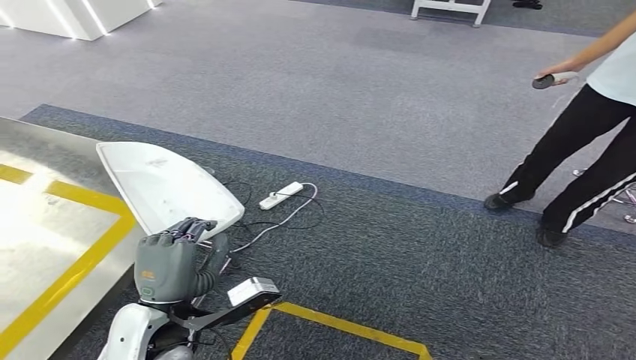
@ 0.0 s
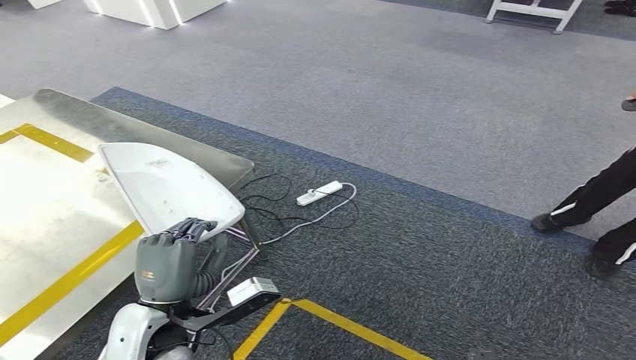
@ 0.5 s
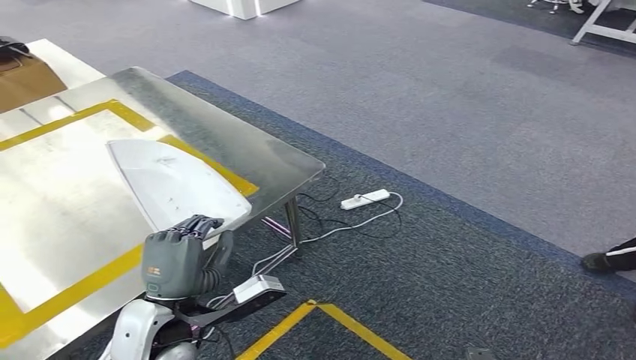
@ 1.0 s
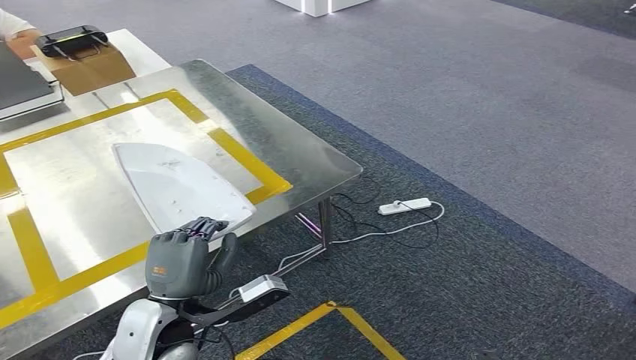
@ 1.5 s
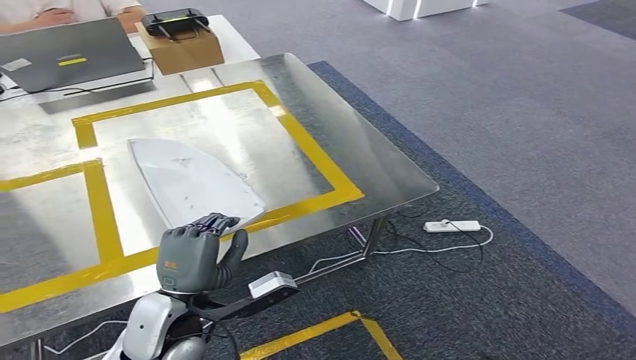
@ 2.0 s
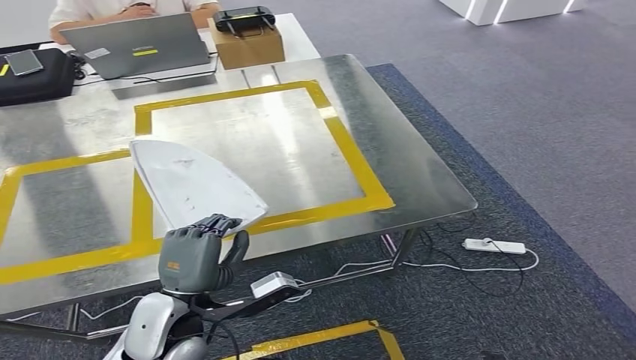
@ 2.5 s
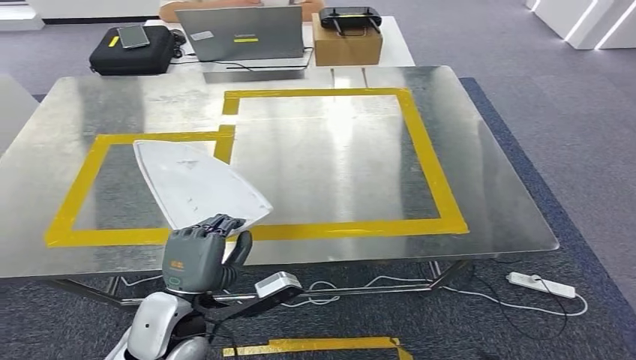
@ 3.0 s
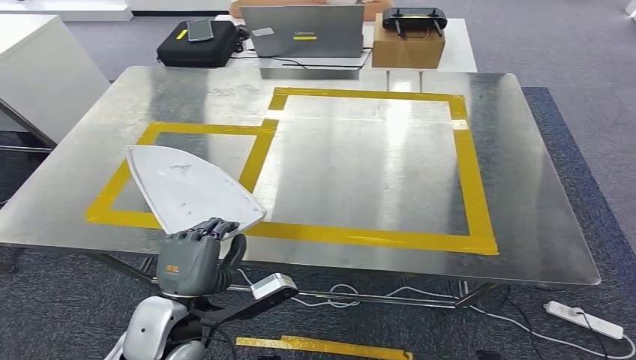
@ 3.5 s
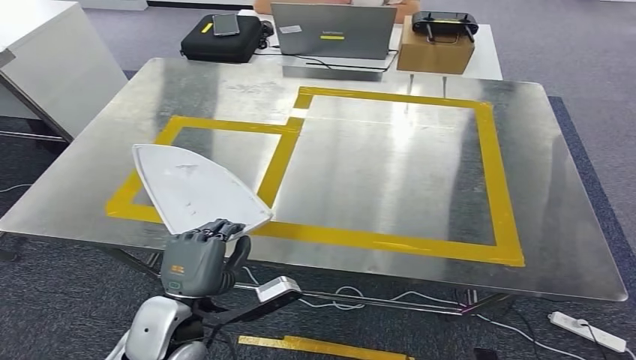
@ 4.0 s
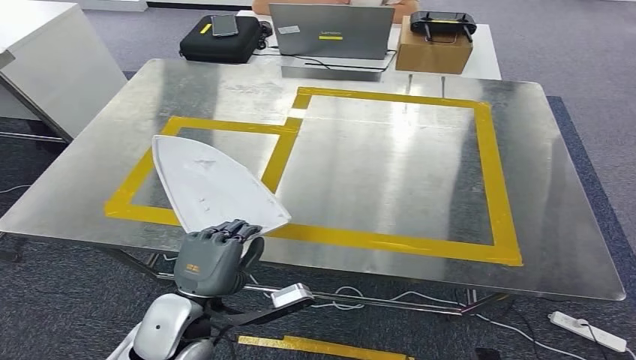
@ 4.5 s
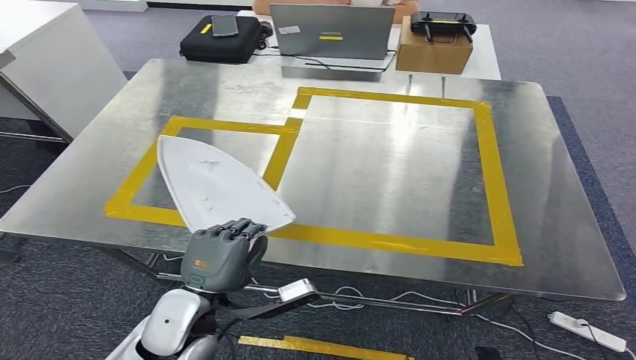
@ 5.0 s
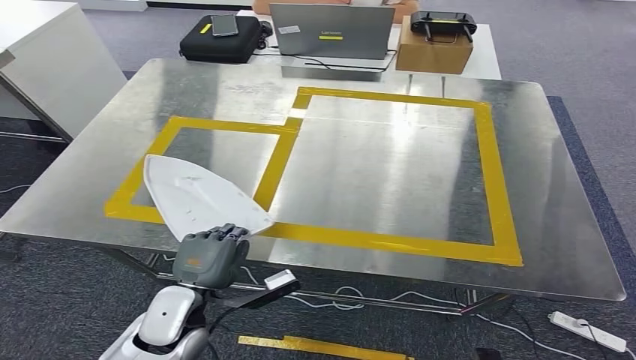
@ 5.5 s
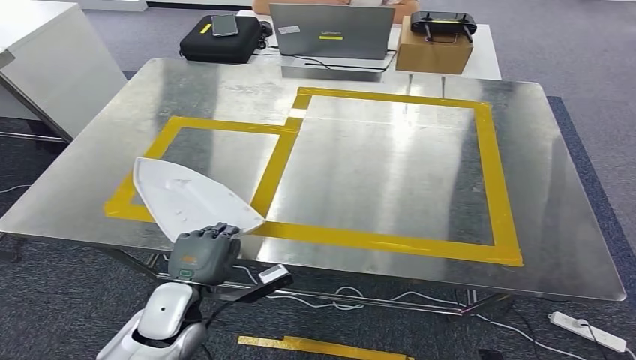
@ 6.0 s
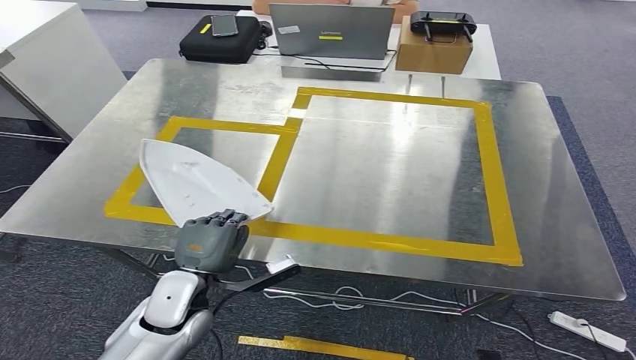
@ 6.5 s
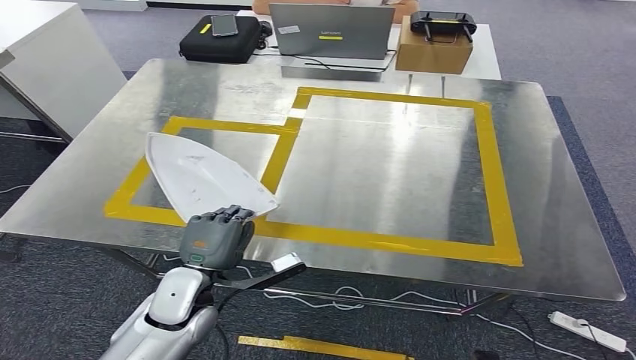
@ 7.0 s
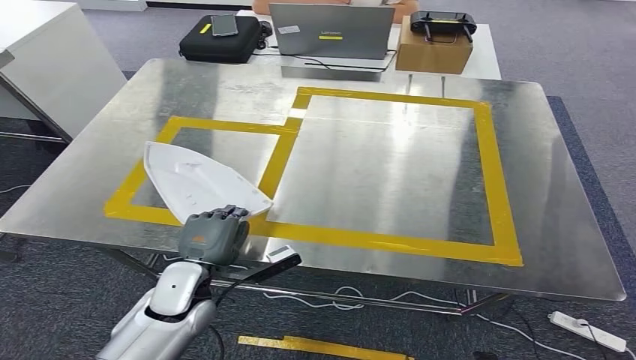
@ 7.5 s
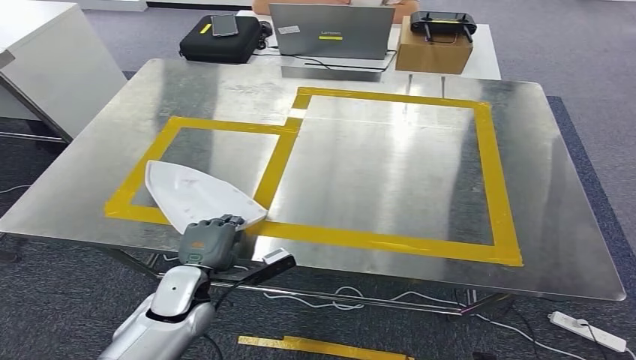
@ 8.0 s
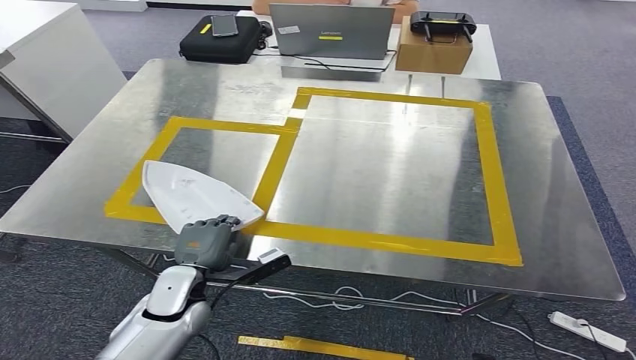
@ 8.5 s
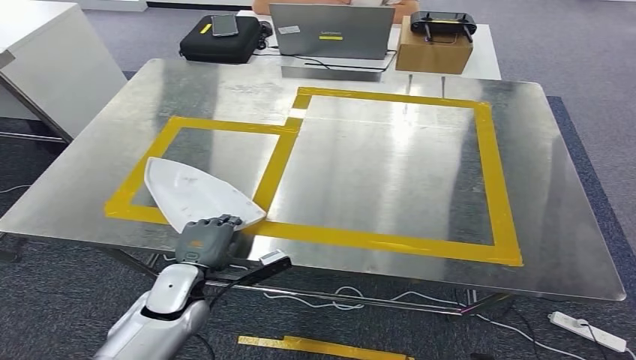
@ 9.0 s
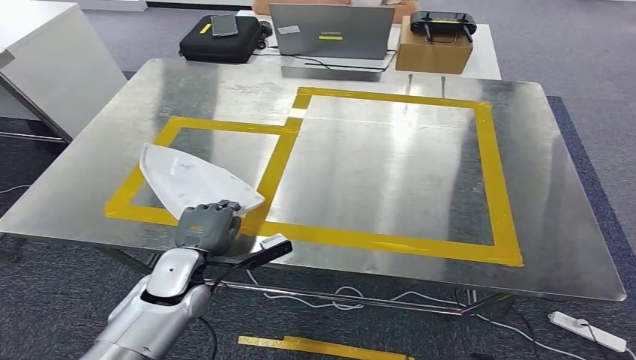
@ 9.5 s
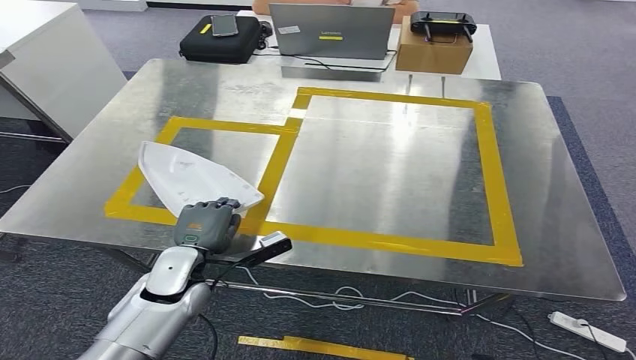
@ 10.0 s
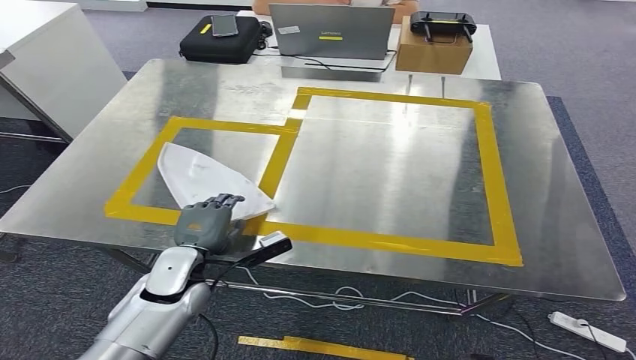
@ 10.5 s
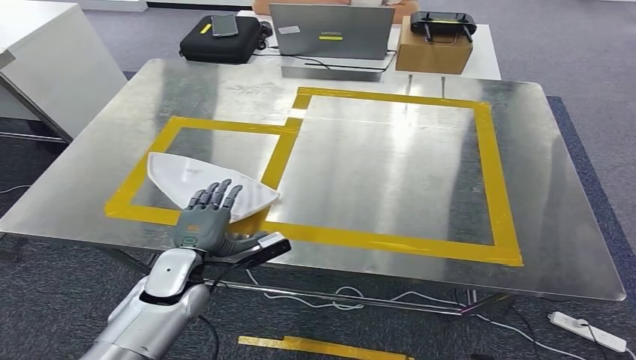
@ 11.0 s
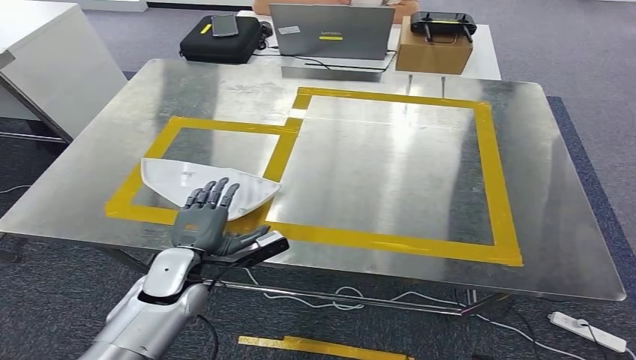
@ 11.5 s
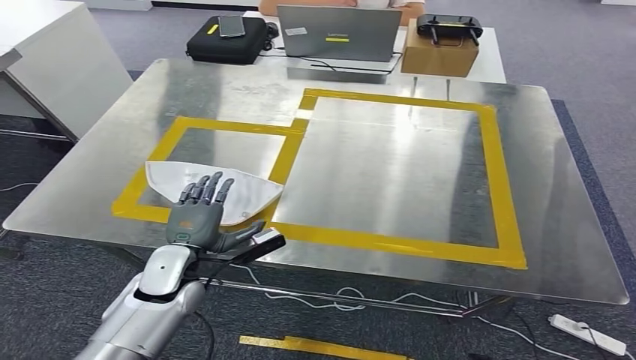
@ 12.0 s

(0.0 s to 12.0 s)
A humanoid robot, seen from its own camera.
Step, 0.0 s - 3.5 s: Move the small parts to the workbench.
4.0 s - 6.0 s: The left hand travels downward by roughly 5 cm.
6.0 s - 8.0 s: The hands make only small movements.
8.0 s - 10.0 s: The hands make only small movements.
10.0 s - 12.0 s: Neither hand changes place.

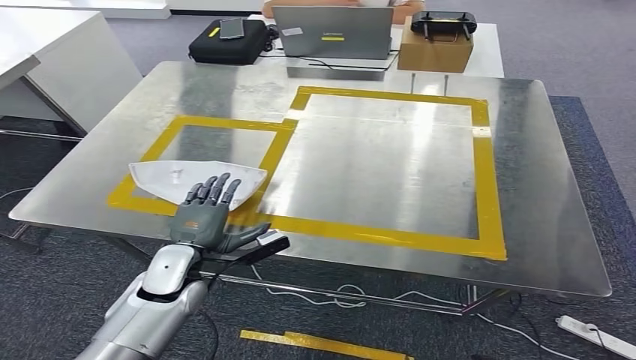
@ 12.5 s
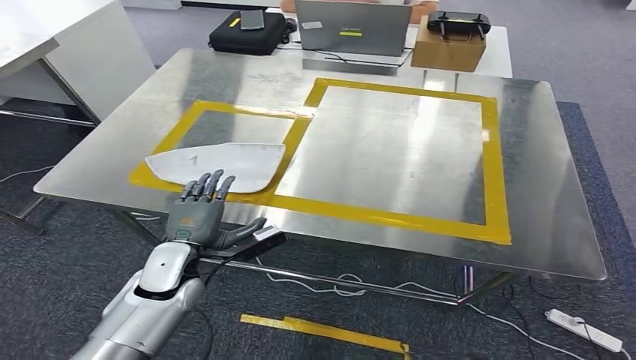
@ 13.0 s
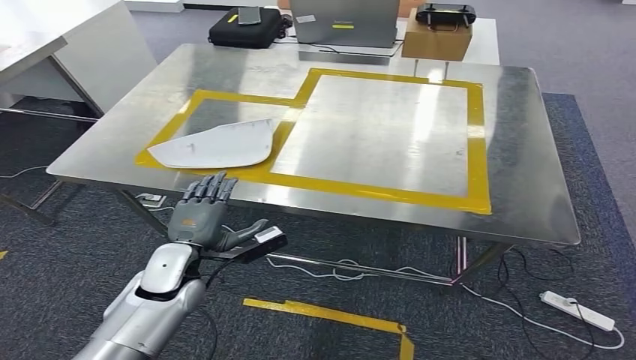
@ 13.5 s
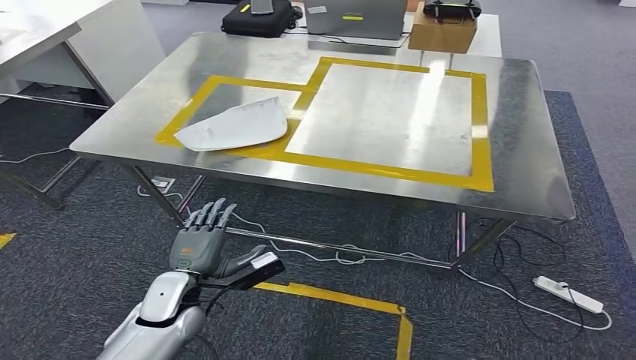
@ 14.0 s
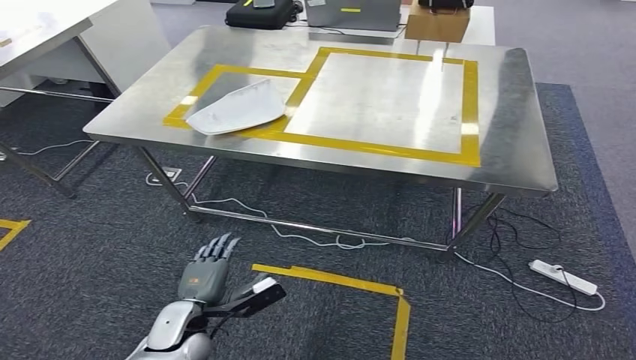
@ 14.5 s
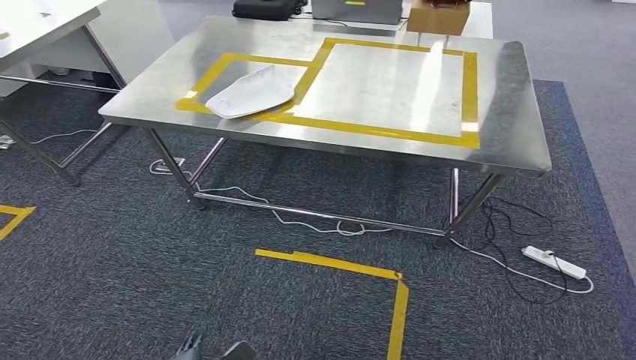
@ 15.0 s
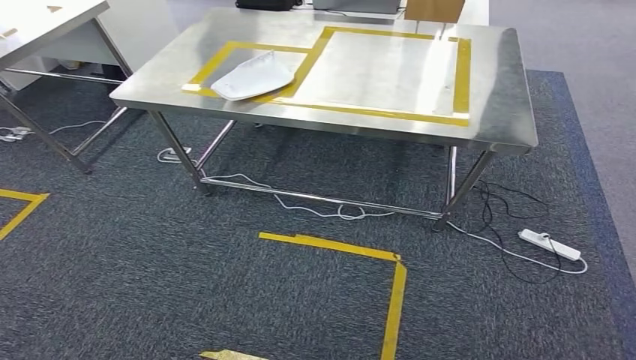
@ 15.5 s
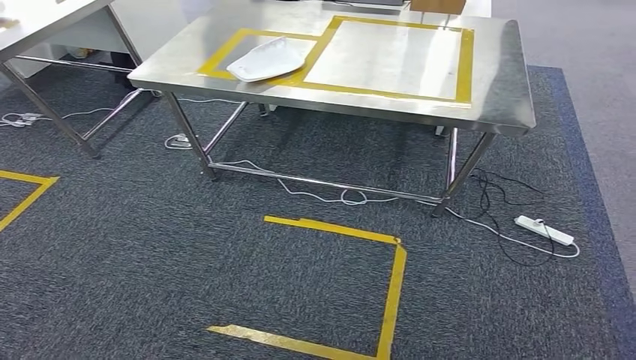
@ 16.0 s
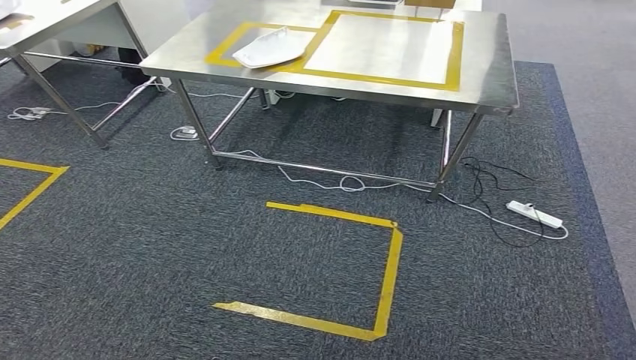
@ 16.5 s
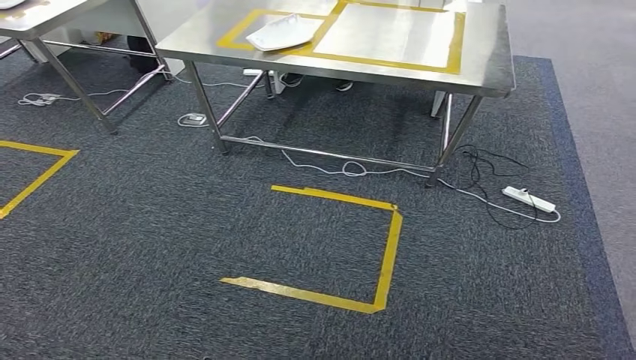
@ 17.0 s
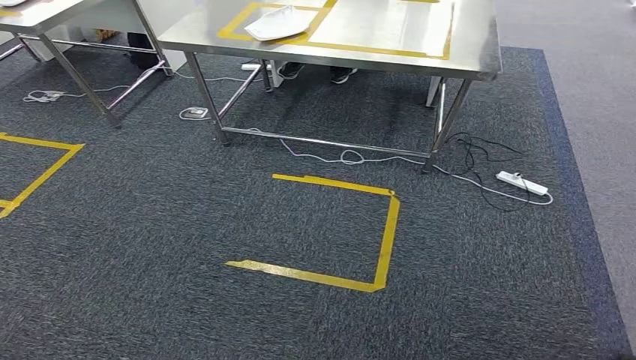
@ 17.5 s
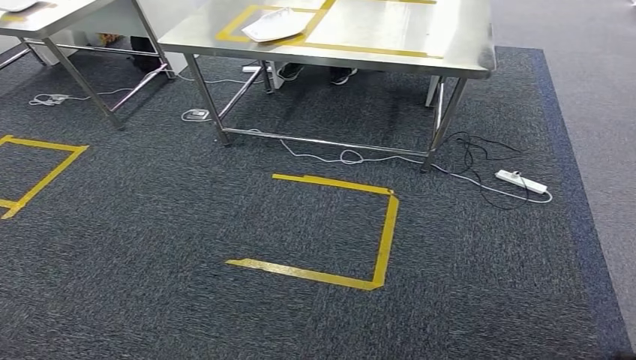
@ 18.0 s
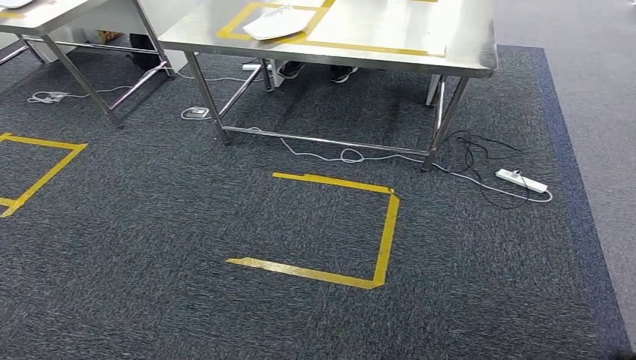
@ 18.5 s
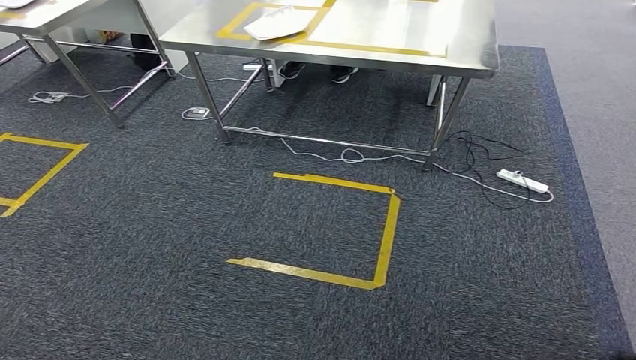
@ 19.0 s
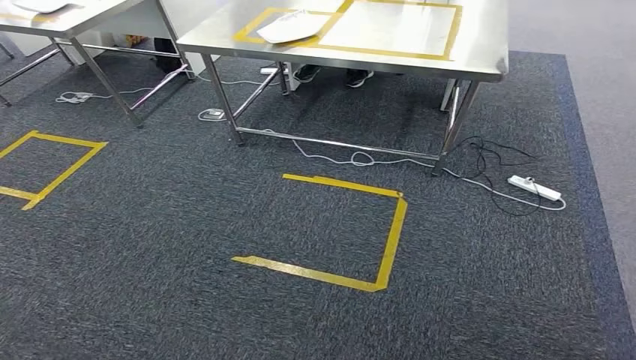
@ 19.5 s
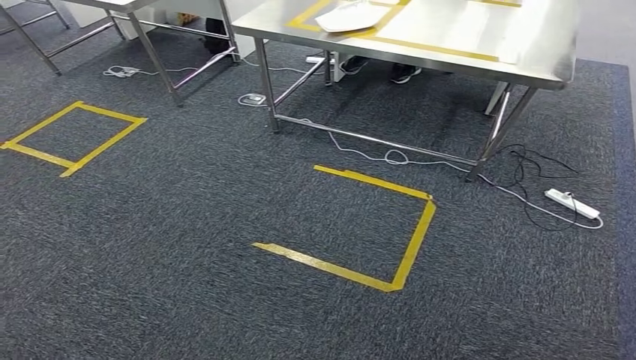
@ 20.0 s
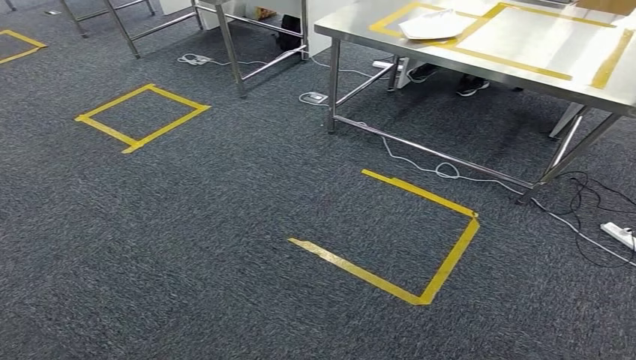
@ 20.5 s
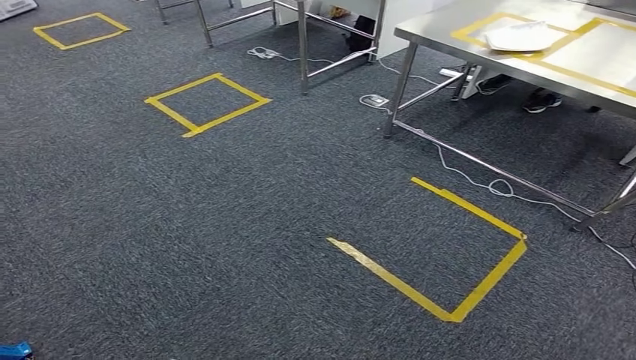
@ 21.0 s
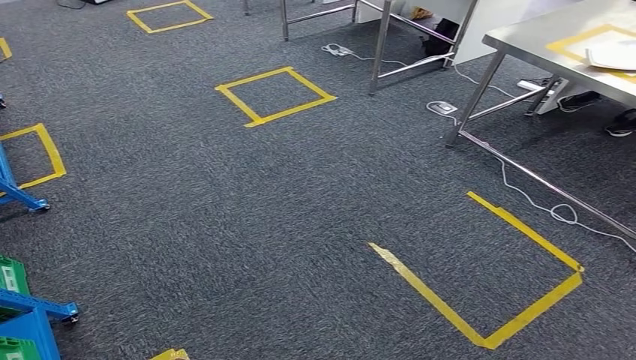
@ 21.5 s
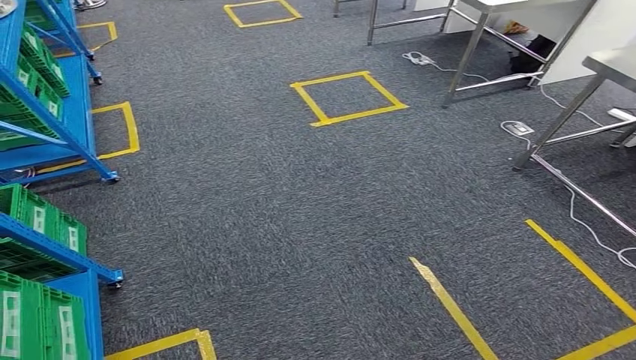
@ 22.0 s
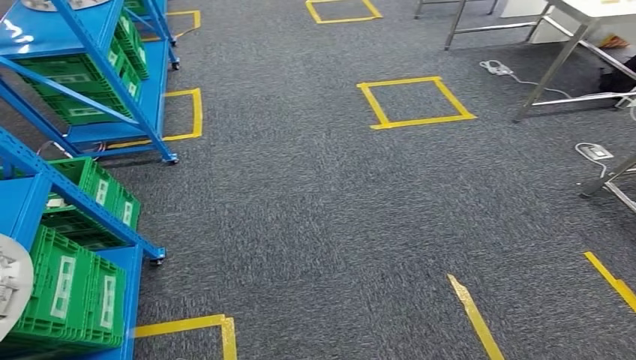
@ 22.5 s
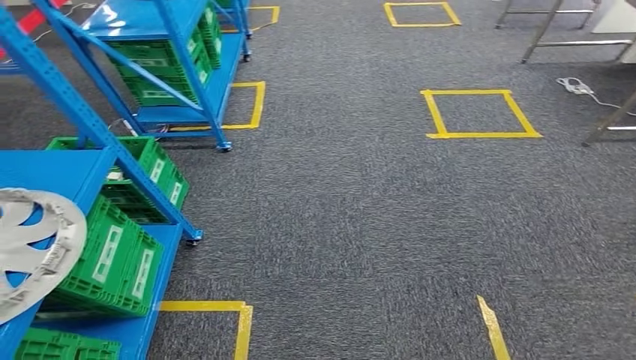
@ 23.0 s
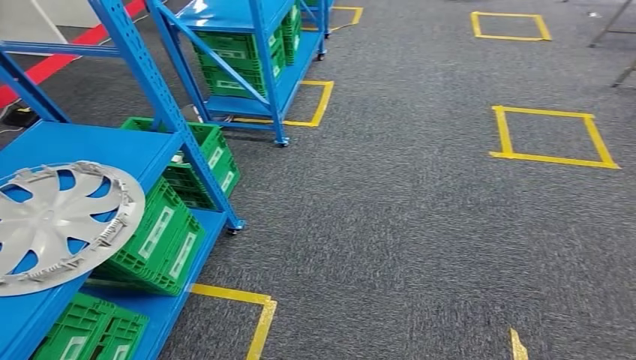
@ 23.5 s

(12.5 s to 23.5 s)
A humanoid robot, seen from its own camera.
Step, 12.5 s - 17.0 s: Insert the small parts into the corresponding holes on the workbench.
